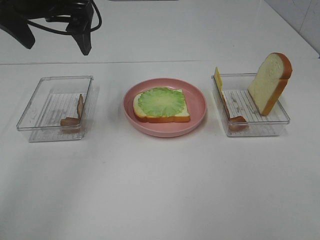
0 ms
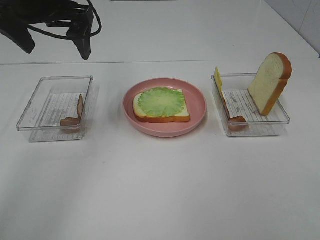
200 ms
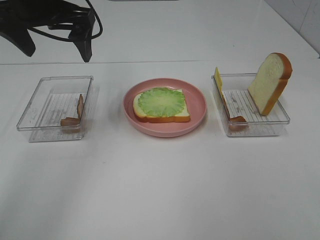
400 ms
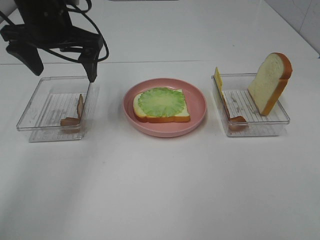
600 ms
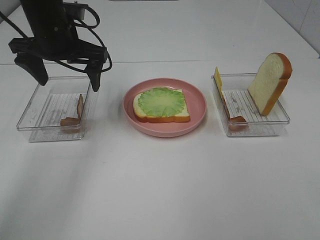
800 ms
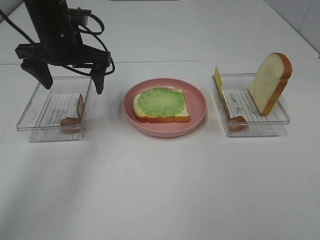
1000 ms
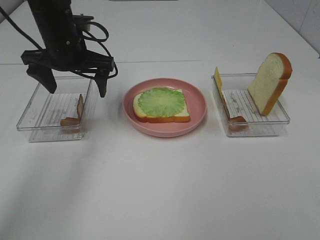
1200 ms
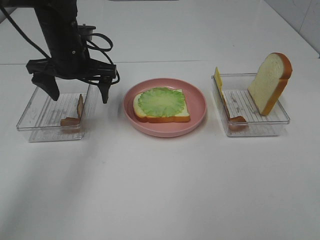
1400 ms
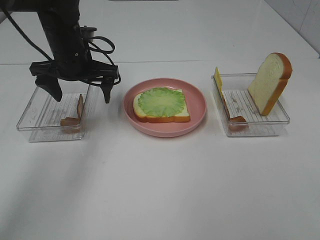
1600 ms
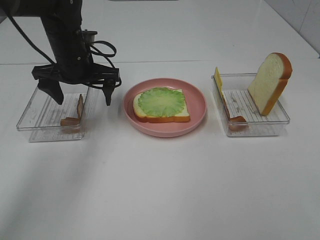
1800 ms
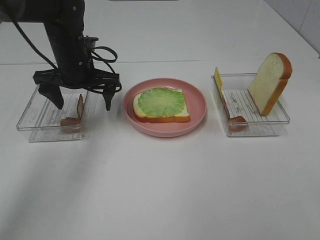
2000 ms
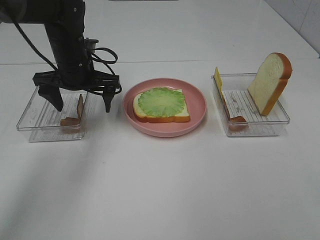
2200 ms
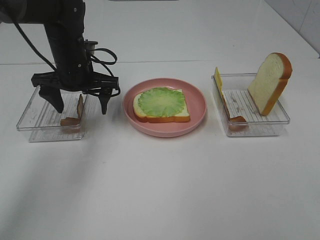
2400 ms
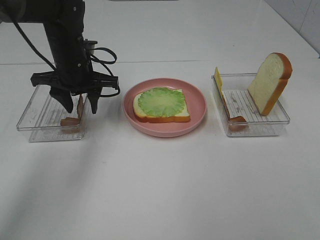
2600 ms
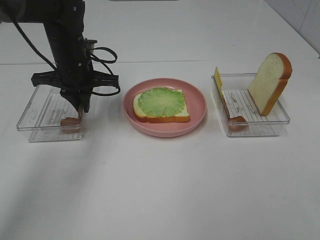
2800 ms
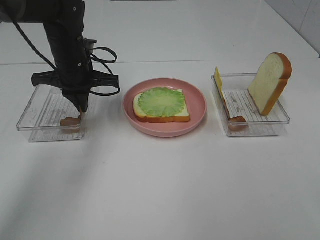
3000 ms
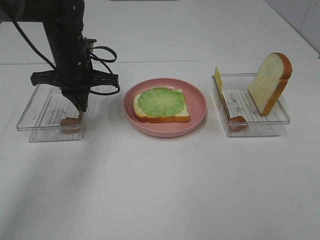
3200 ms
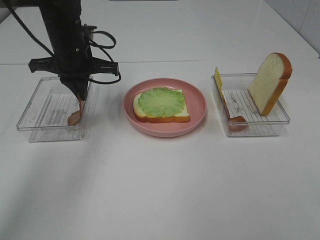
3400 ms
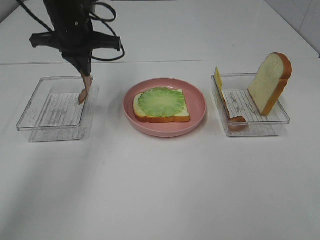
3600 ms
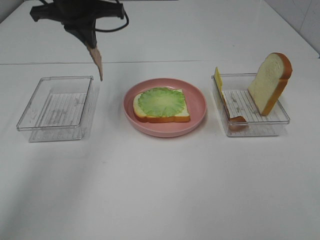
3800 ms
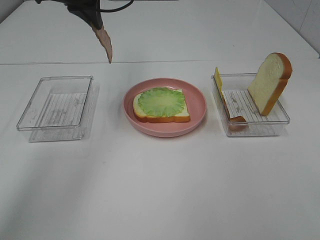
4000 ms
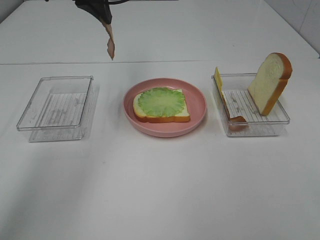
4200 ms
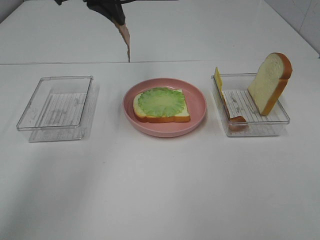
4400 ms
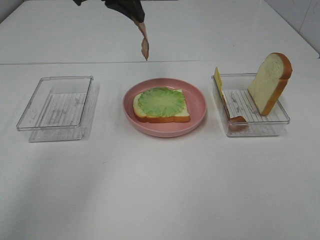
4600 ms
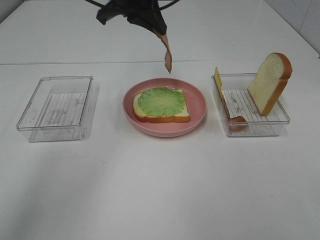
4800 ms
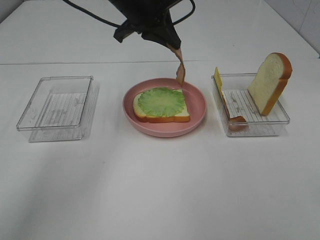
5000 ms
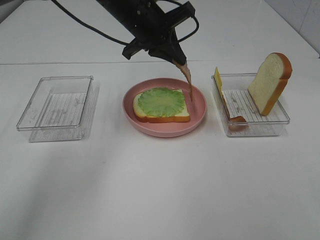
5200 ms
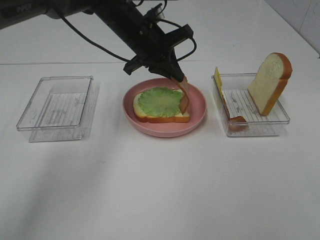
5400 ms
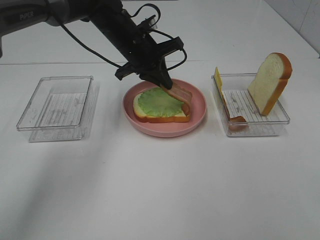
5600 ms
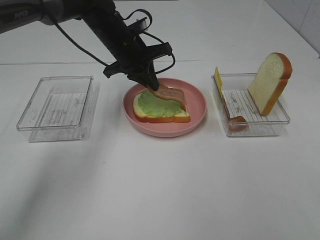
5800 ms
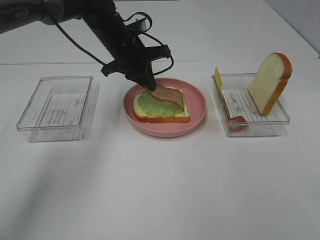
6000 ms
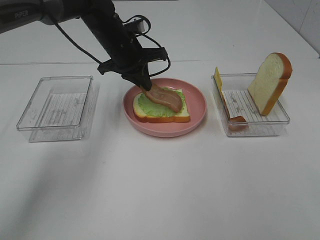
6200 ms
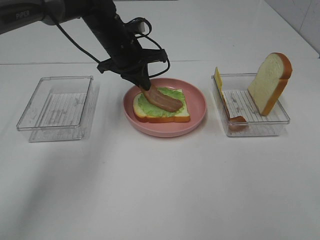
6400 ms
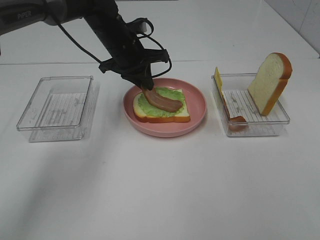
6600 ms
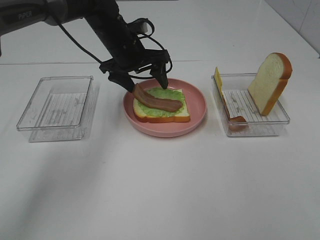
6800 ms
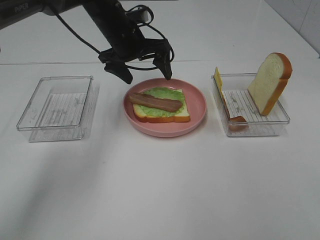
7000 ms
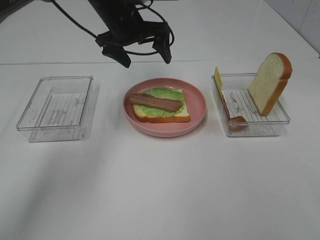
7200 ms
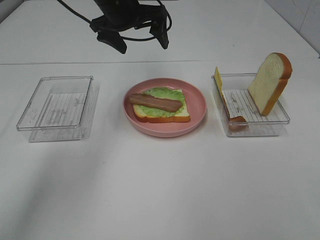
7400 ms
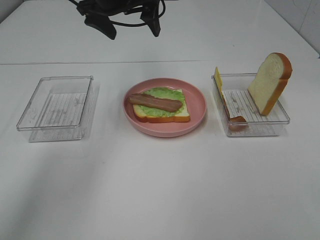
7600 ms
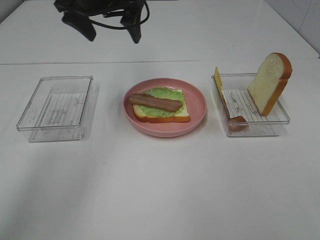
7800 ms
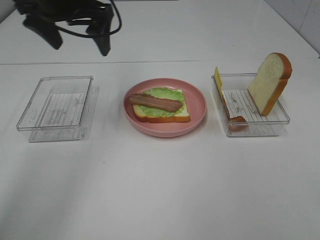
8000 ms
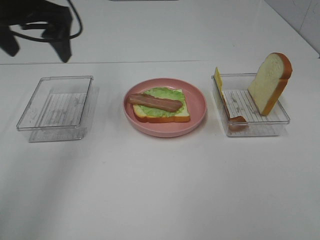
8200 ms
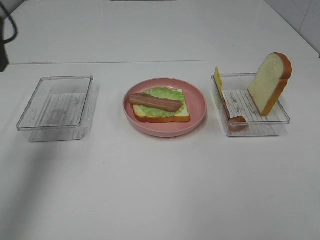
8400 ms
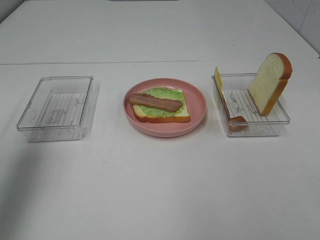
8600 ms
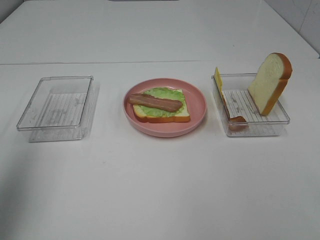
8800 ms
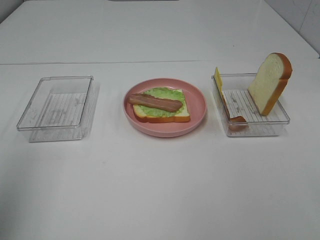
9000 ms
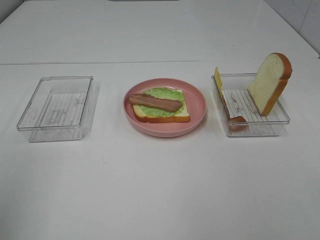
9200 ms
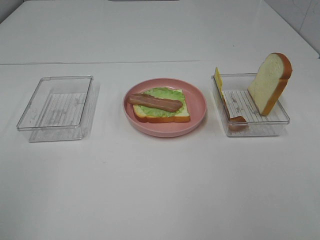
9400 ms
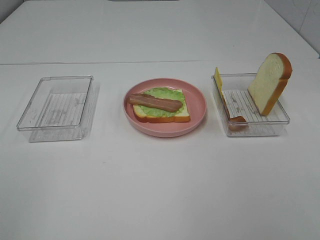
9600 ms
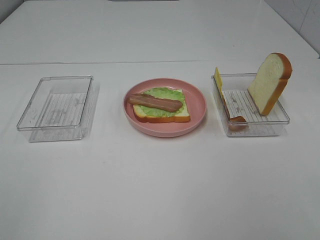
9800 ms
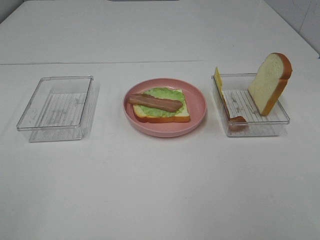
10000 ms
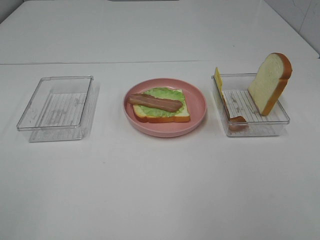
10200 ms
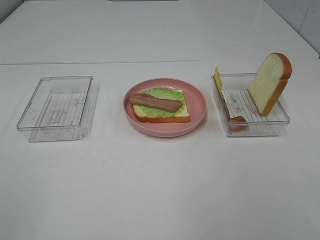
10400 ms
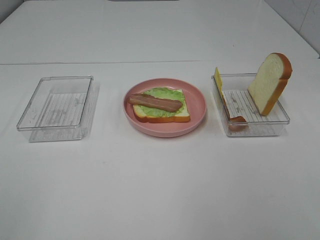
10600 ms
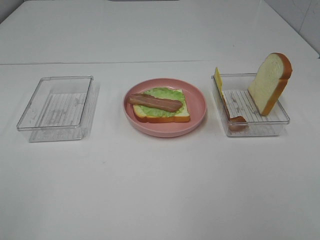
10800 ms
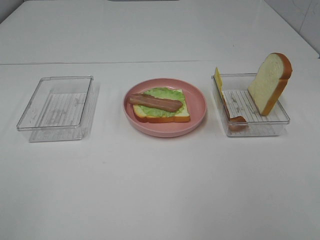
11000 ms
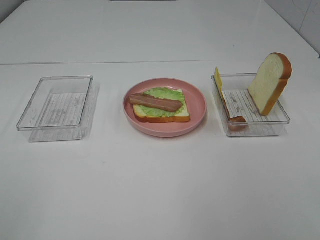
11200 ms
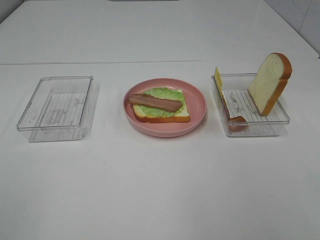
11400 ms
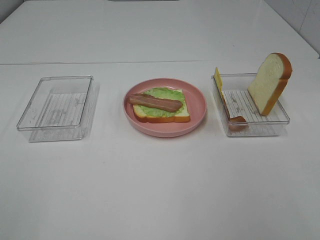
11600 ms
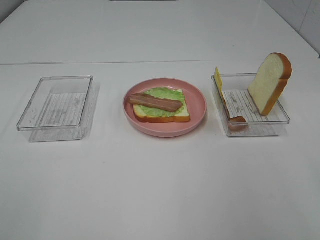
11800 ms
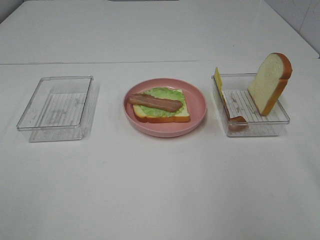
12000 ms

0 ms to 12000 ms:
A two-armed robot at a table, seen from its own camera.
Task of the whole recording: Make sandwiches.
Step, 0 ms to 3000 ms: Left hand:grab the bacon.
Step, 3200 ms to 6800 ms: Left hand:place bacon on lettuce slice.
0 ms to 1600 ms: The left gripper is displaced downward by some 15 cm.
1600 ms to 3000 ms: The left gripper closes.
3000 ms to 4400 ms: The left gripper heads upward, covering some 15 cm.
4400 ms to 6000 ms: The left gripper goes some 15 cm downward.
6000 ms to 7600 ms: The left gripper shifts about 10 cm upward, and opens its fingers.
7600 ms to 9000 ms: The left gripper travels backward and to the left by about 40 cm.
9000 ms to 10400 ms: The left gripper is displaced backward and downward by about 15 cm.

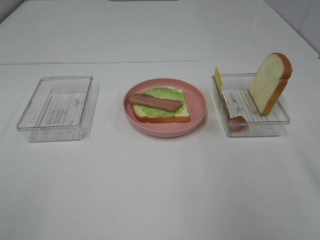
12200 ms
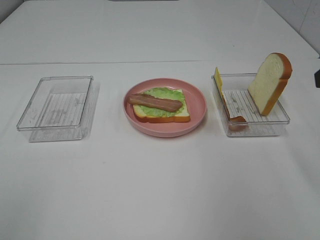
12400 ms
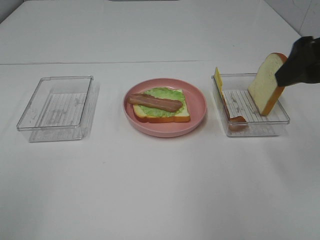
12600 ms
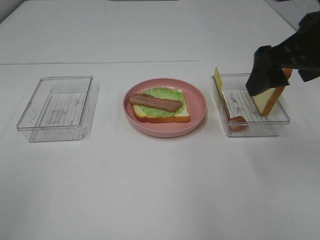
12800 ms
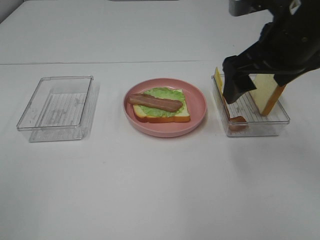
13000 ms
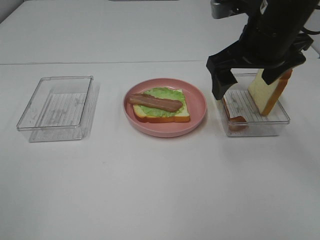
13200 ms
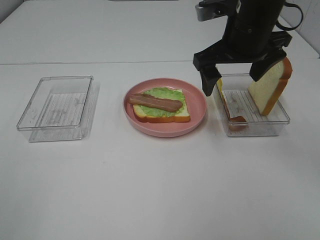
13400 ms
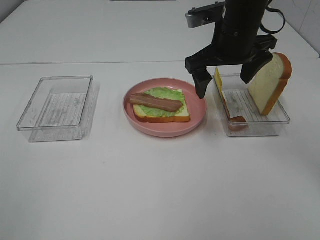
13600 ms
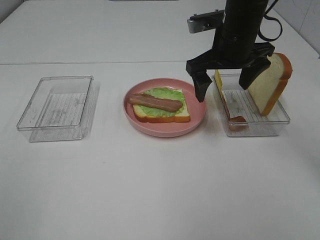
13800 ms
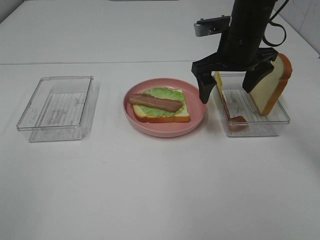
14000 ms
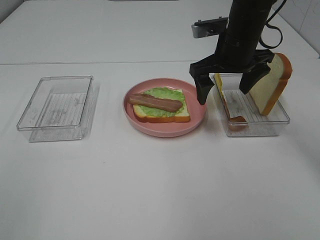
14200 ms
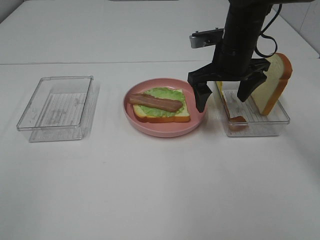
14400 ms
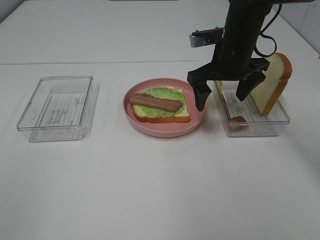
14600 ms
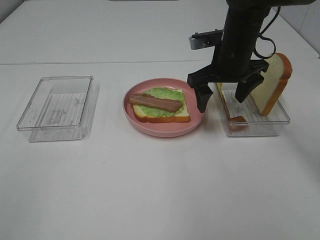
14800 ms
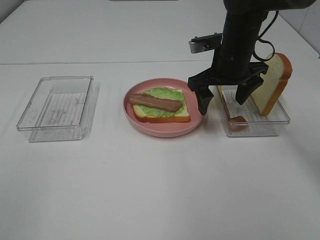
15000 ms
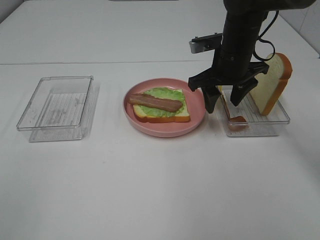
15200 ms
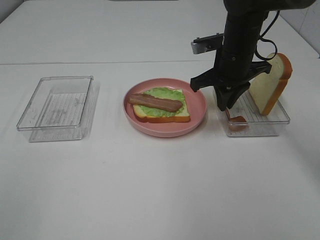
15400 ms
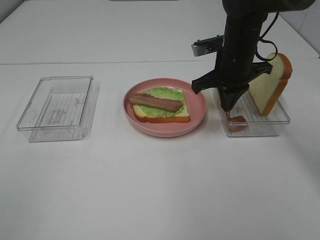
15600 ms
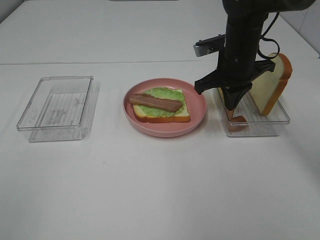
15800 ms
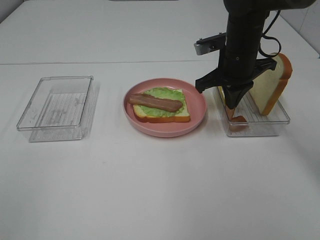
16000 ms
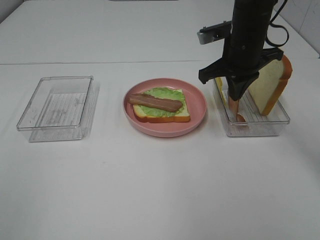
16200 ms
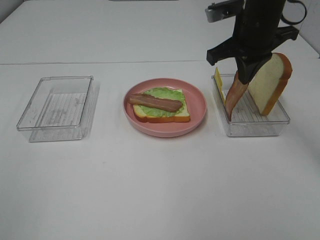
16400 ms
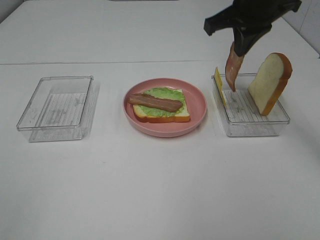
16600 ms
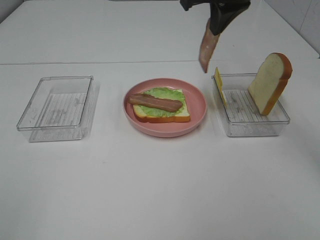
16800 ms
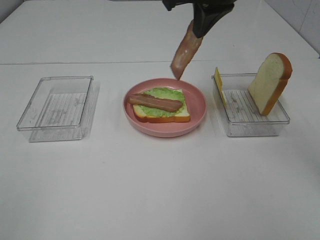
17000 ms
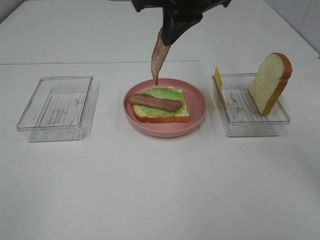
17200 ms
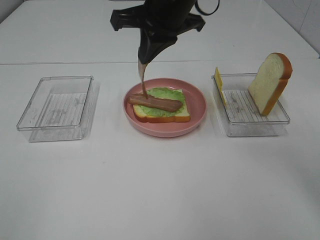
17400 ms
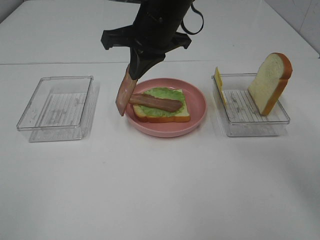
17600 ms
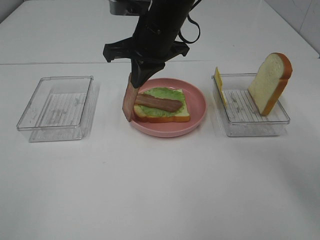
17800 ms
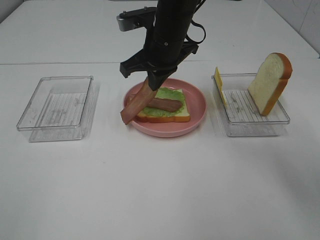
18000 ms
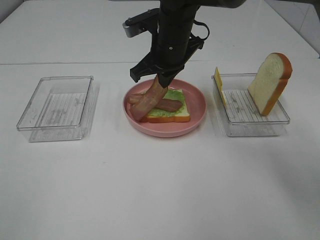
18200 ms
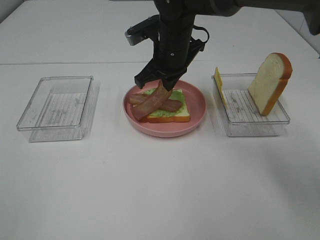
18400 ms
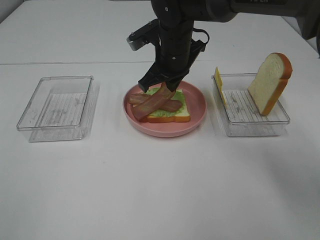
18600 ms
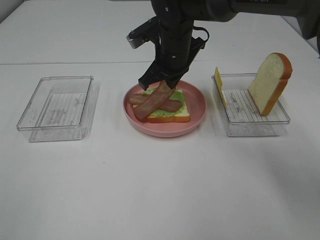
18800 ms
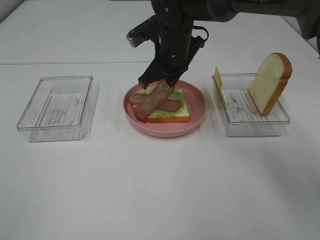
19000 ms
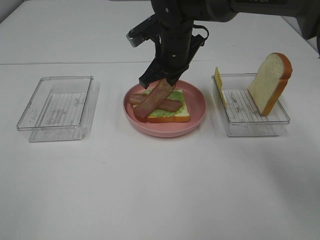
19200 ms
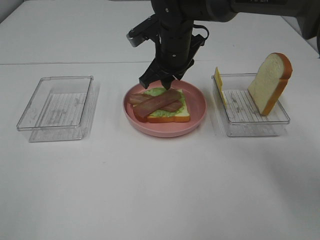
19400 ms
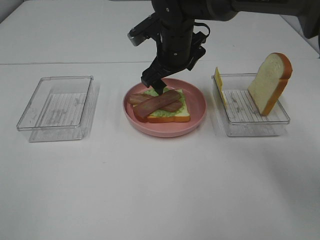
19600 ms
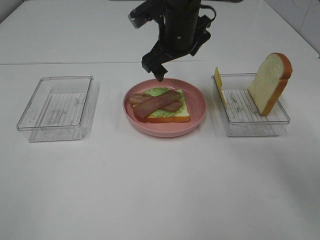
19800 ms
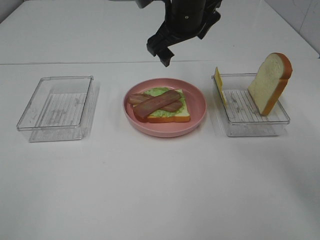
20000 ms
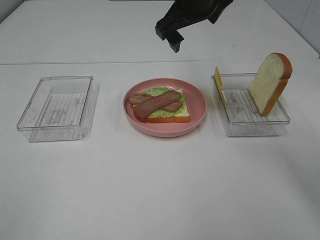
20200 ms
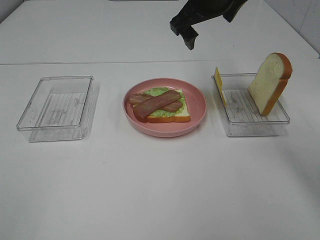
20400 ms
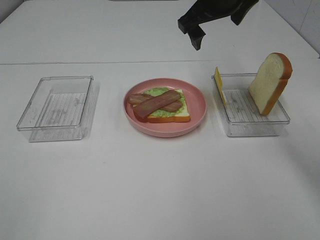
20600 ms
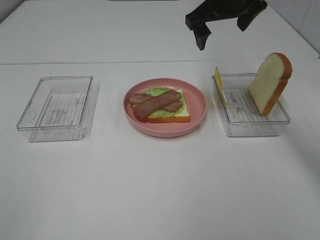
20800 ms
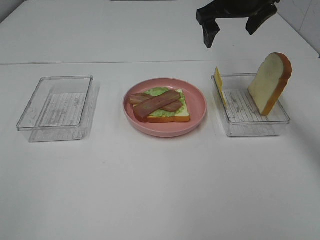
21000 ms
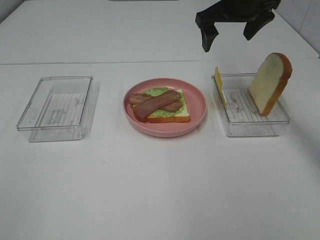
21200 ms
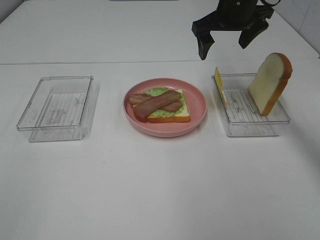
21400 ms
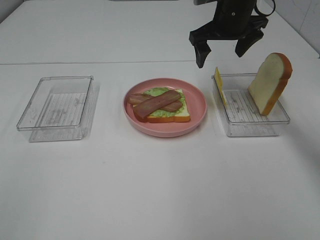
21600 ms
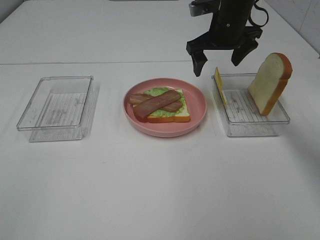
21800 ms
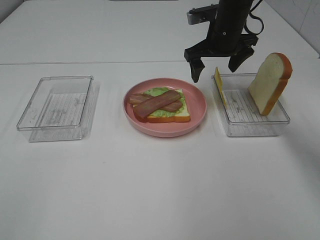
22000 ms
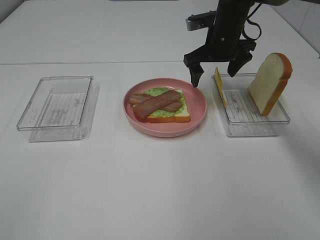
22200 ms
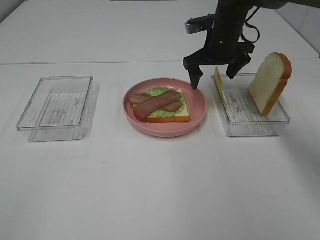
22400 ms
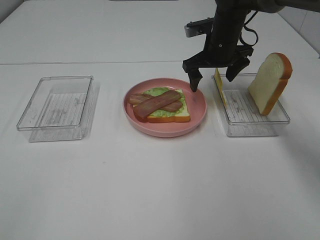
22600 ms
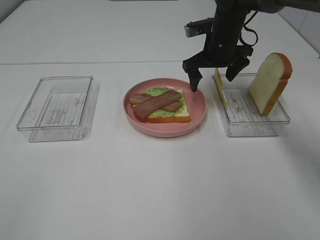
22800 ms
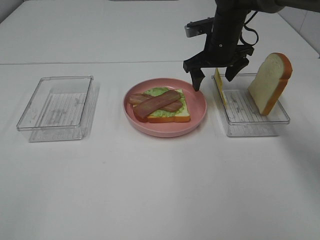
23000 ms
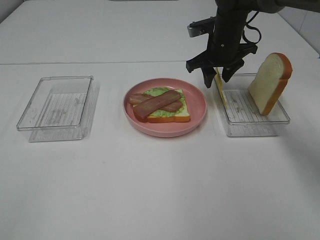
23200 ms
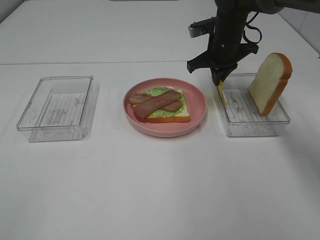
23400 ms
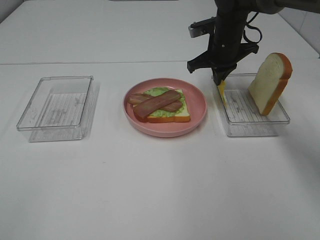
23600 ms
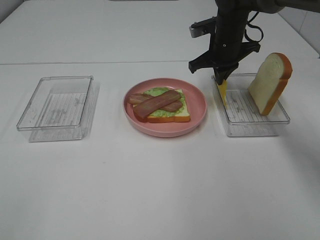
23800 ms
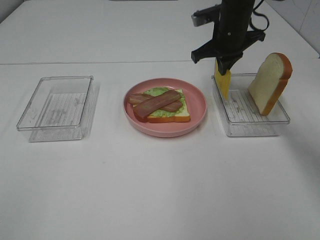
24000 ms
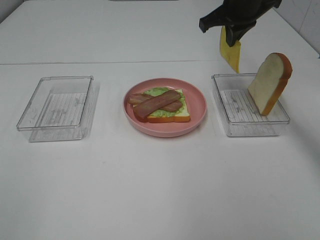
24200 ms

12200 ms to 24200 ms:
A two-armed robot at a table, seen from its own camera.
Task of the whole recording: Make sandwiches.
Step, 12200 ms to 15600 ms: Right hand:grab the bacon.
Step, 15800 ms to 19400 ms: Right hand:place bacon on bacon.
Step, 19600 ms to 23800 ms: Right hand:grab the cheese slice.
12200 ms to 13800 ms: The right gripper travels forward and to the left by roughly 25 cm.
13800 ms to 15200 ms: The right gripper closes up.
15200 ms to 16600 ms: The right gripper shifts approximately 10 cm upward, and closes.
16600 ms to 18200 ms: The right gripper goes roughly 15 cm to the left and downward.
18200 ms to 19800 ms: The right gripper opens.
19800 ms to 21200 ms: The right gripper moves to the right, about 10 cm.
21200 ms to 22600 ms: The right gripper is displaced downward by about 10 cm.
22600 ms to 24200 ms: The right gripper is displaced upward by some 10 cm, and closes up.
